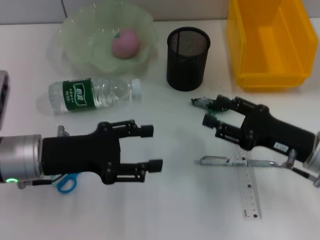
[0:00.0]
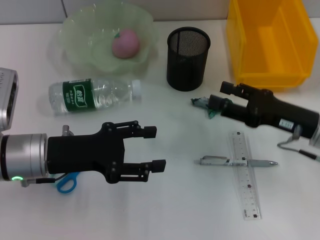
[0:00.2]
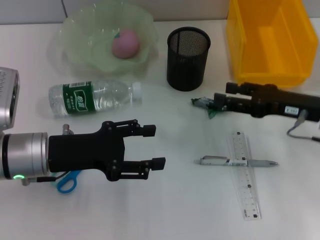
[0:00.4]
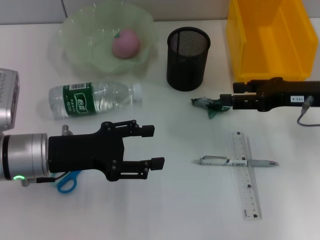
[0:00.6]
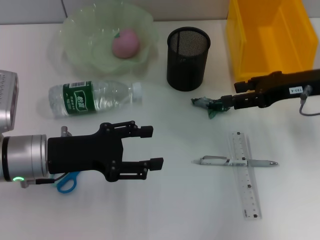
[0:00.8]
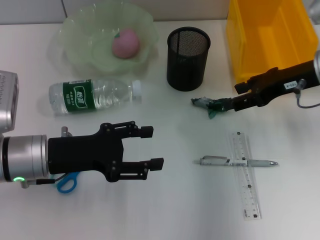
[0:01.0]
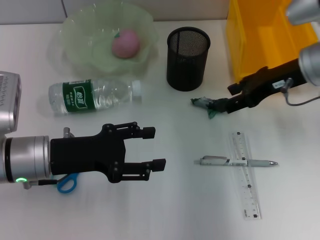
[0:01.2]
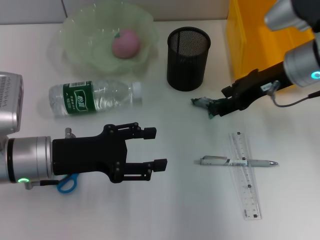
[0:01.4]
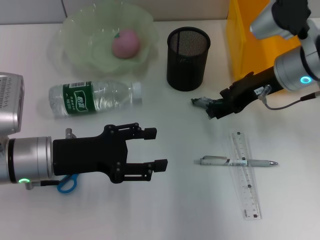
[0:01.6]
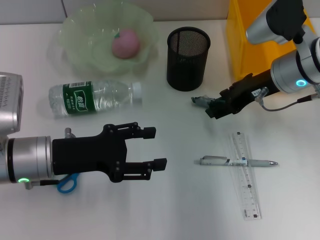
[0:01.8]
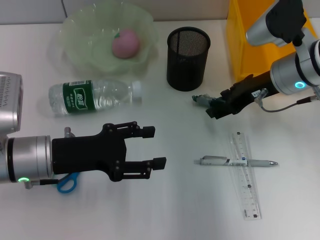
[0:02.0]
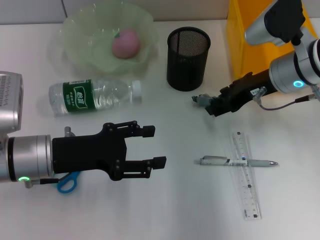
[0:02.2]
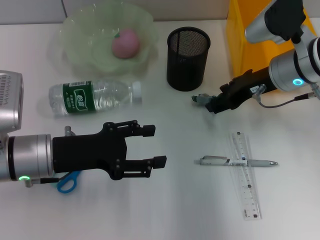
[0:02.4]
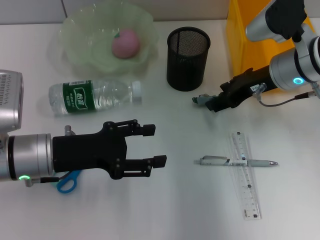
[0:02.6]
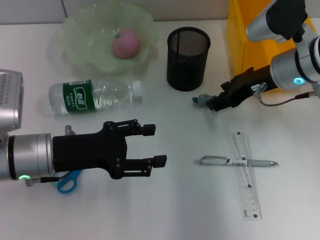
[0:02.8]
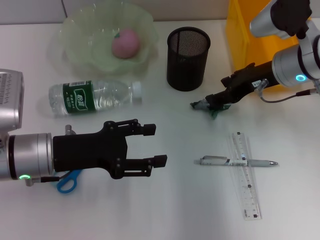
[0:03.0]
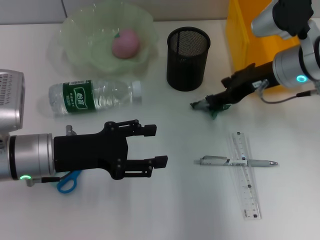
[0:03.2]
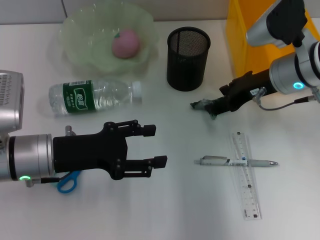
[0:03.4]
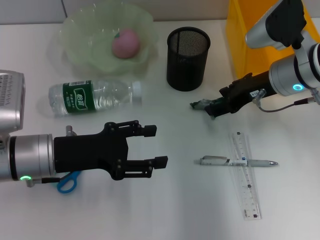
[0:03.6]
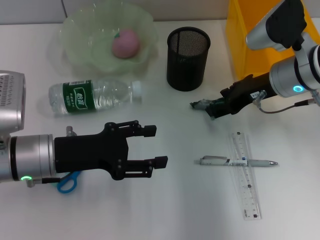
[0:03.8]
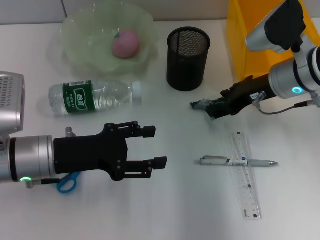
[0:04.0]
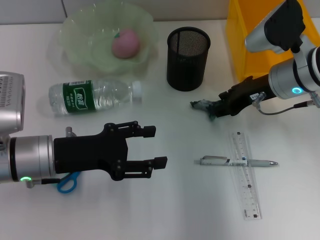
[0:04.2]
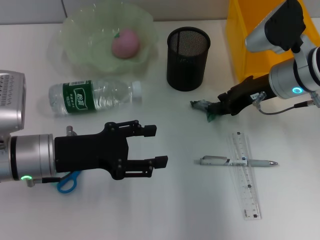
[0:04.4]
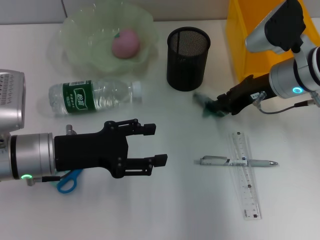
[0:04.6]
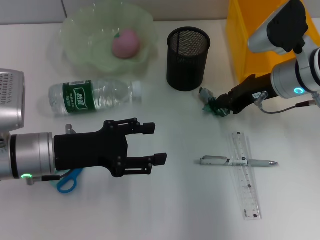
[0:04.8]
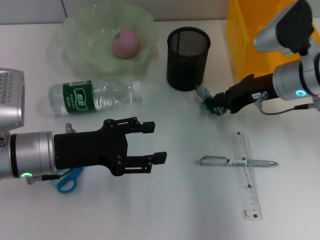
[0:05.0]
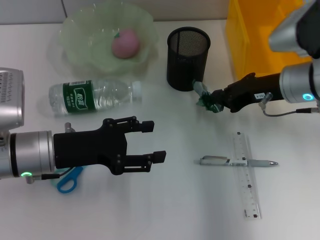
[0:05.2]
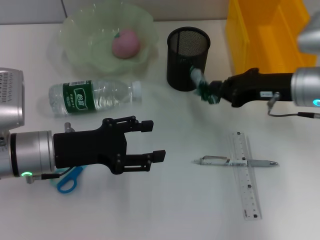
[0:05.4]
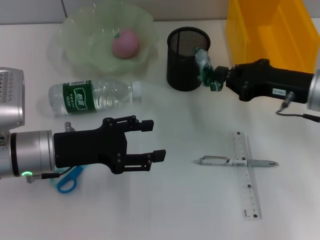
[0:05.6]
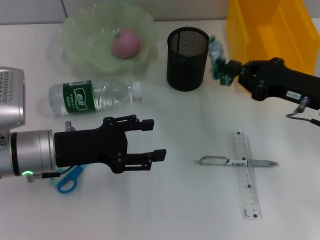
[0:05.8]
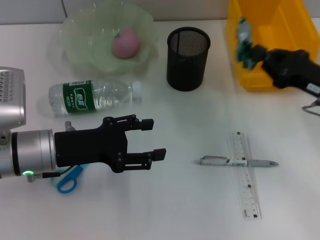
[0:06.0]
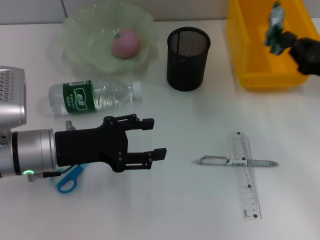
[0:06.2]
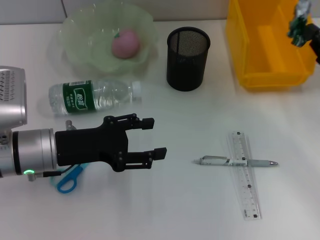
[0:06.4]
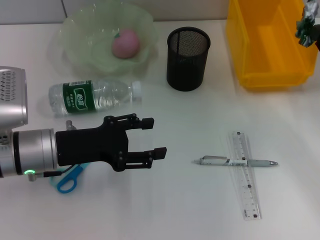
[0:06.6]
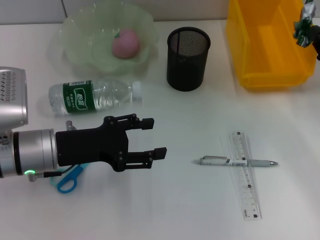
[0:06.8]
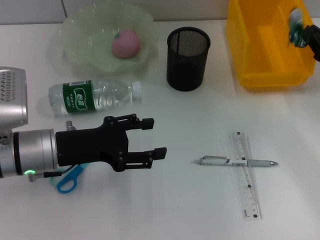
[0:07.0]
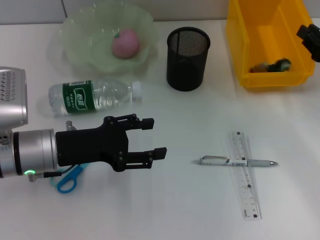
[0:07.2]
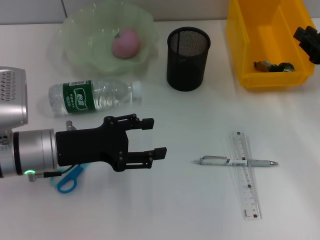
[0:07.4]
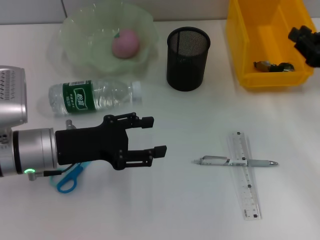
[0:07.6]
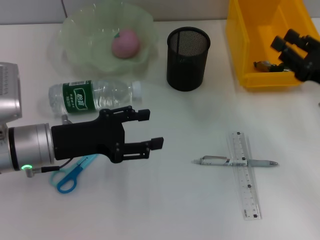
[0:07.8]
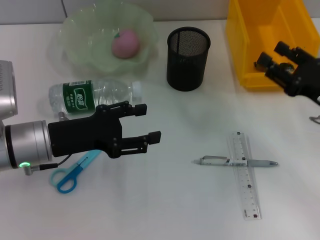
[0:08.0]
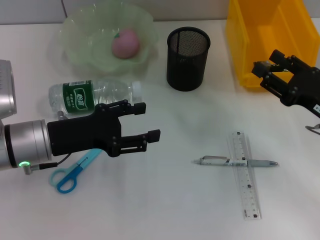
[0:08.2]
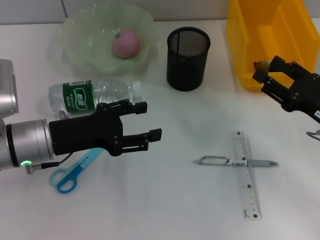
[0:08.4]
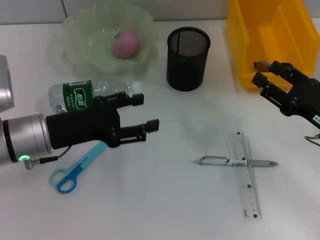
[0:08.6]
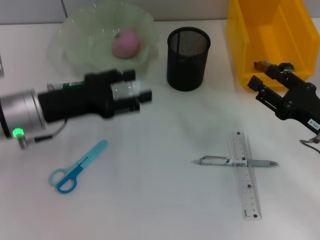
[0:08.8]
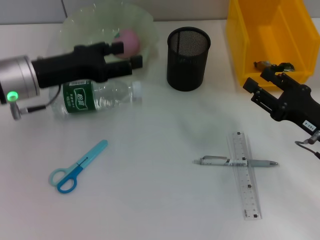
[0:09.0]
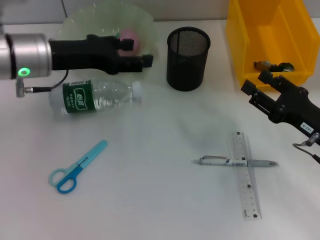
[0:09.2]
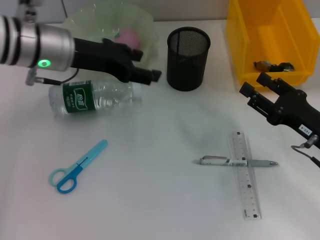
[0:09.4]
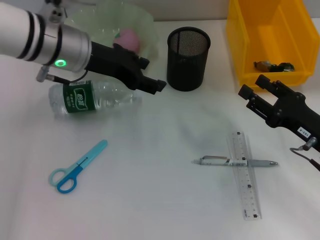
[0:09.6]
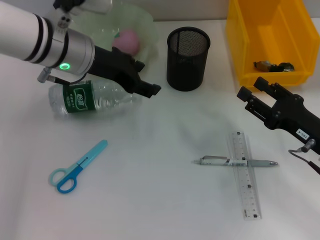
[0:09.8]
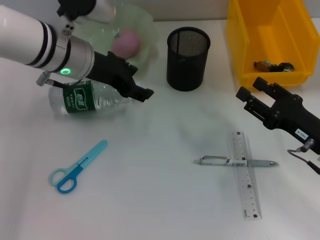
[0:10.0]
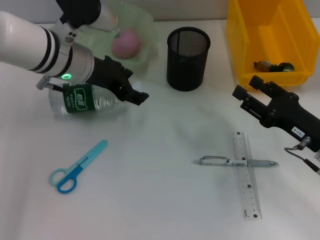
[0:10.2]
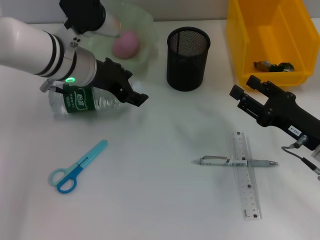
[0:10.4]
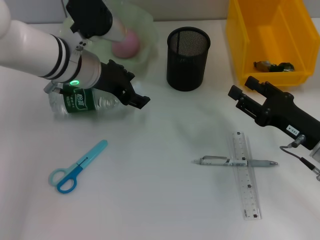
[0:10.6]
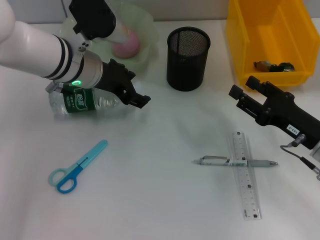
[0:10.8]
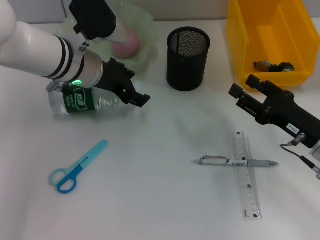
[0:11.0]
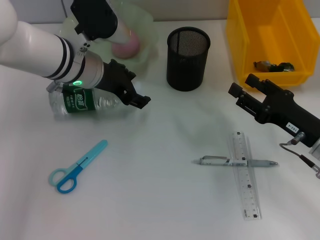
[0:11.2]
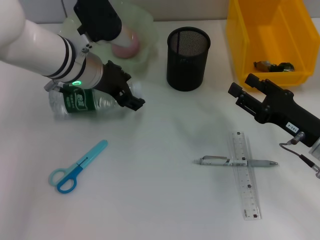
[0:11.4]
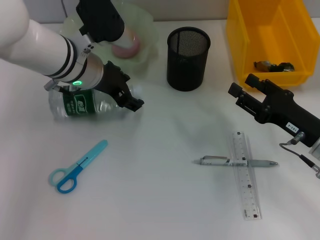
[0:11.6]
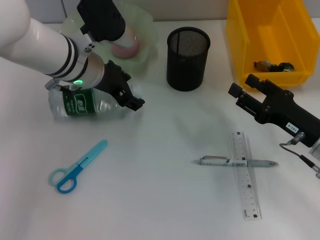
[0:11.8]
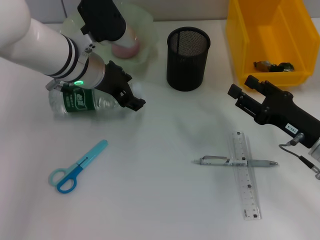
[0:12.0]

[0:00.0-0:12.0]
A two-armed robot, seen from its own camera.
Step, 0:00.0 to 0:04.8: Grab the plastic with the right hand.
Step, 0:05.0 to 0:07.2: Place the plastic into the trash can with the right hand.
0:00.0 to 0:01.6: The right gripper heads forward and upward, covering about 15 cm.
0:01.6 to 0:04.4: There are only small adjustments of the grippers.
0:04.4 to 0:06.0: The right gripper is displaced to the right and backward by about 10 cm, and closes its fingers.
0:07.6 to 0:09.0: The left gripper heads forward and upward, covering about 10 cm. The right gripper shifts some 5 cm backward, and opens its fingers.
0:09.0 to 0:10.4: The left gripper goes some 10 cm to the right and forward.
0:10.4 to 0:12.0: The grippers move only a little.

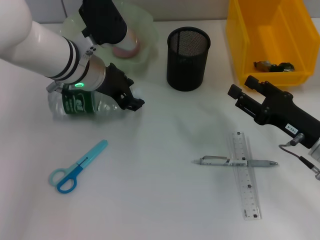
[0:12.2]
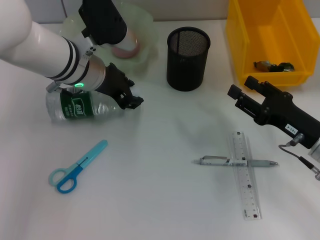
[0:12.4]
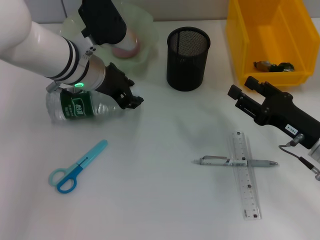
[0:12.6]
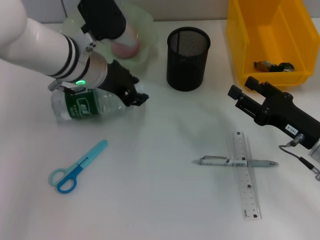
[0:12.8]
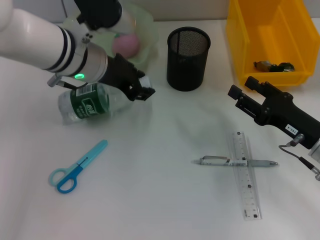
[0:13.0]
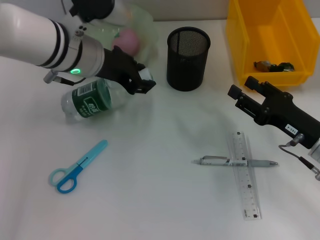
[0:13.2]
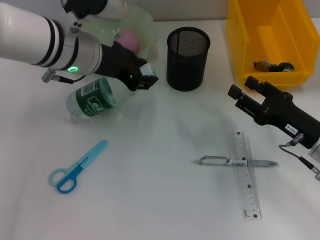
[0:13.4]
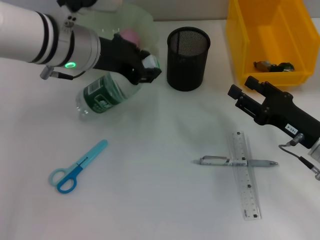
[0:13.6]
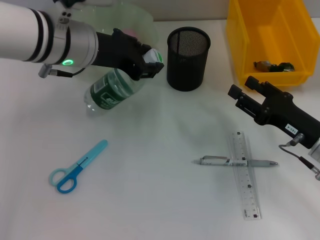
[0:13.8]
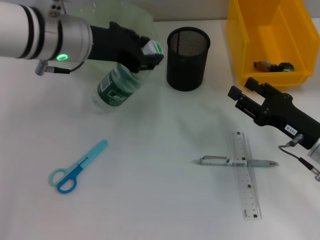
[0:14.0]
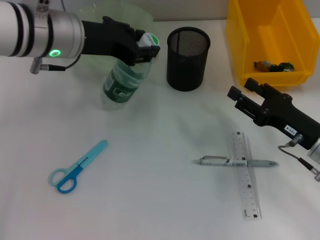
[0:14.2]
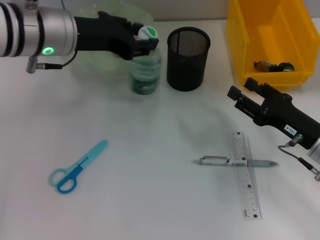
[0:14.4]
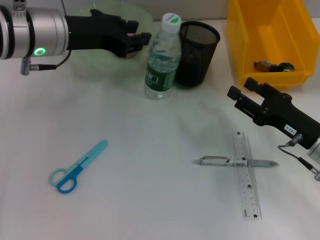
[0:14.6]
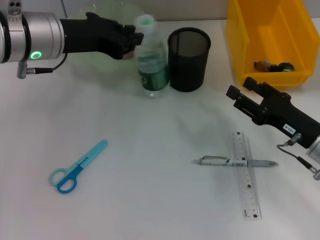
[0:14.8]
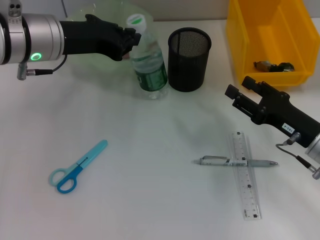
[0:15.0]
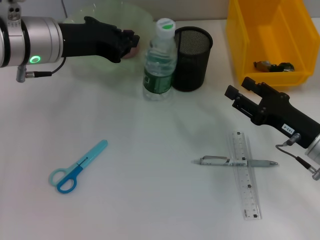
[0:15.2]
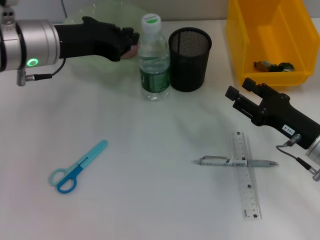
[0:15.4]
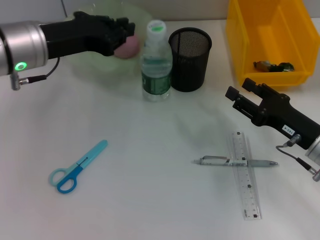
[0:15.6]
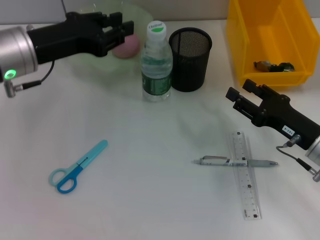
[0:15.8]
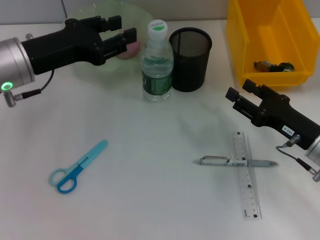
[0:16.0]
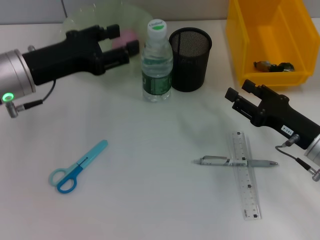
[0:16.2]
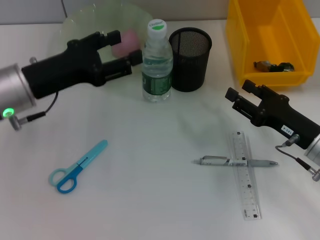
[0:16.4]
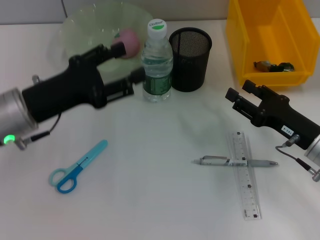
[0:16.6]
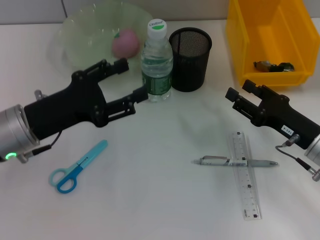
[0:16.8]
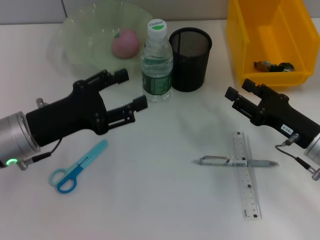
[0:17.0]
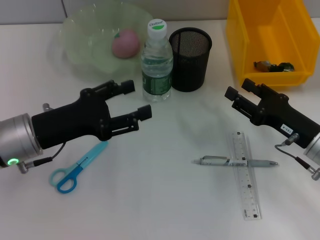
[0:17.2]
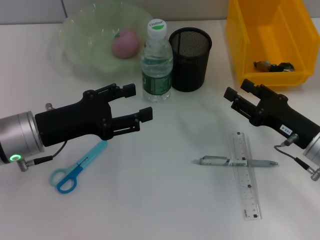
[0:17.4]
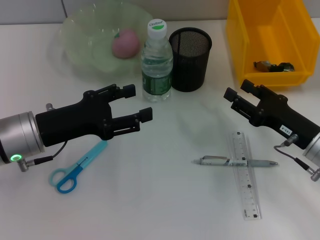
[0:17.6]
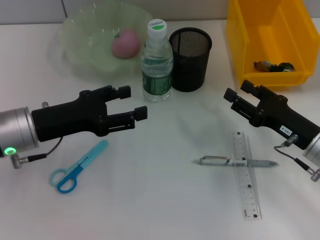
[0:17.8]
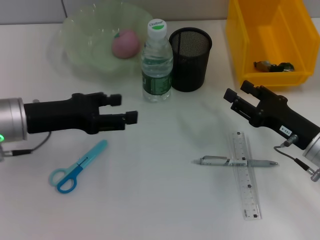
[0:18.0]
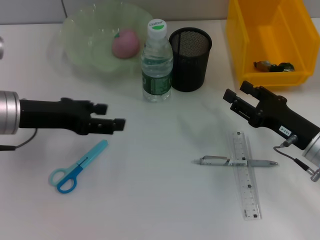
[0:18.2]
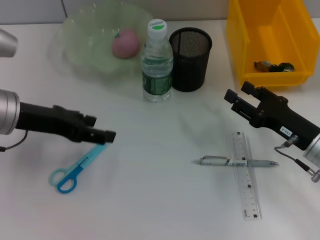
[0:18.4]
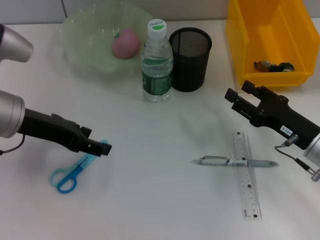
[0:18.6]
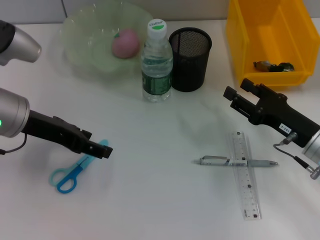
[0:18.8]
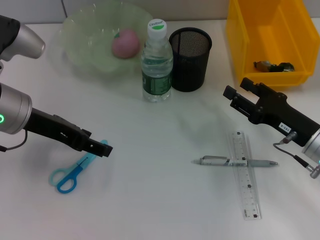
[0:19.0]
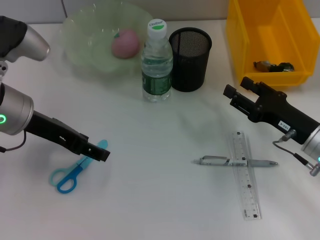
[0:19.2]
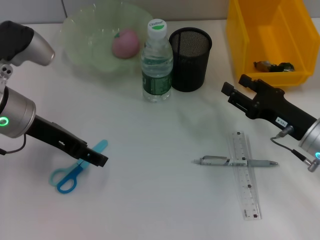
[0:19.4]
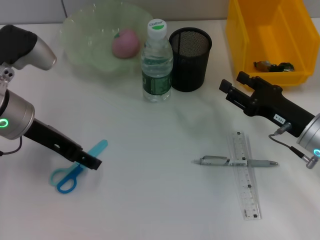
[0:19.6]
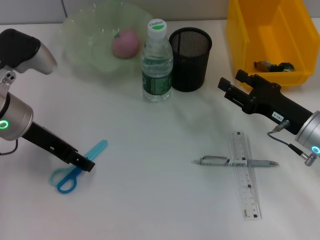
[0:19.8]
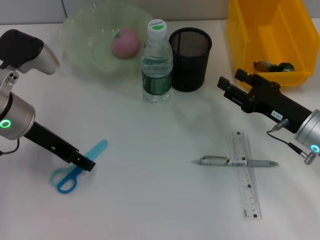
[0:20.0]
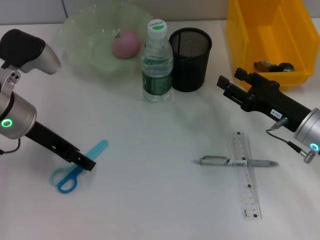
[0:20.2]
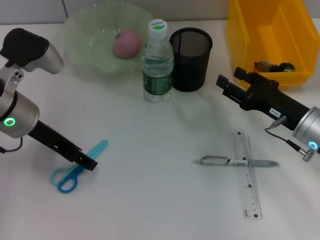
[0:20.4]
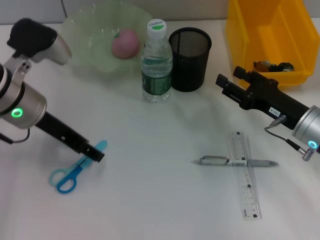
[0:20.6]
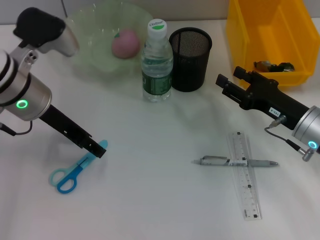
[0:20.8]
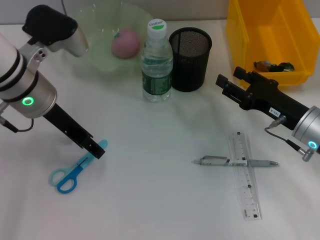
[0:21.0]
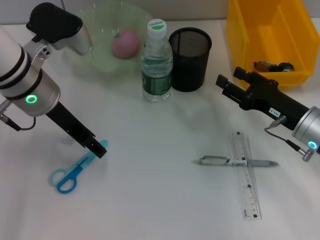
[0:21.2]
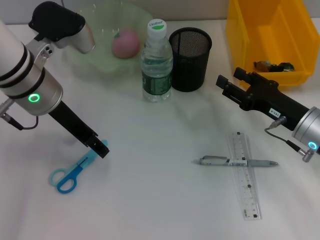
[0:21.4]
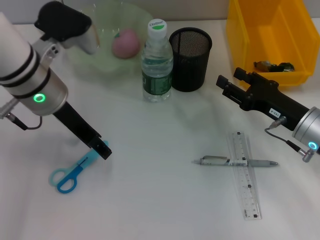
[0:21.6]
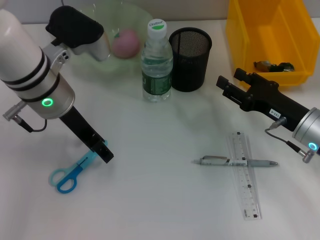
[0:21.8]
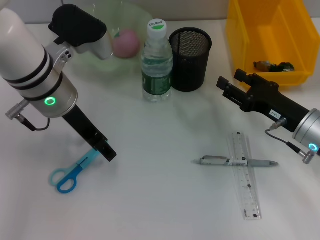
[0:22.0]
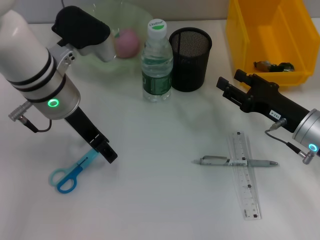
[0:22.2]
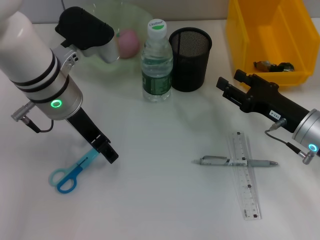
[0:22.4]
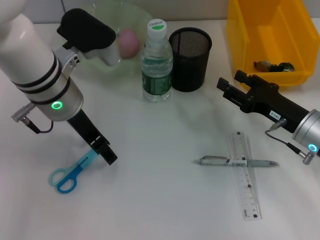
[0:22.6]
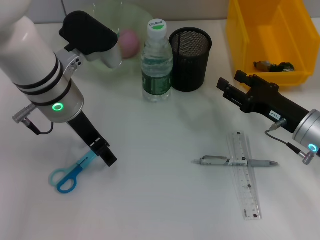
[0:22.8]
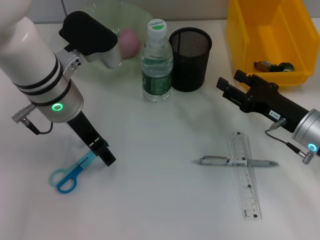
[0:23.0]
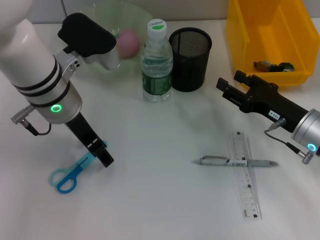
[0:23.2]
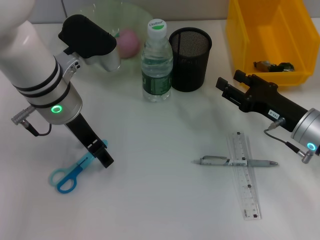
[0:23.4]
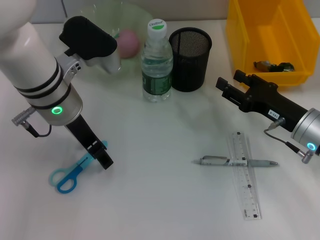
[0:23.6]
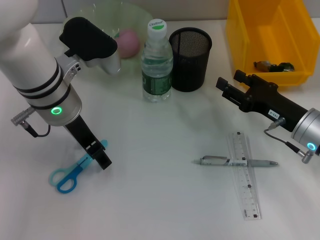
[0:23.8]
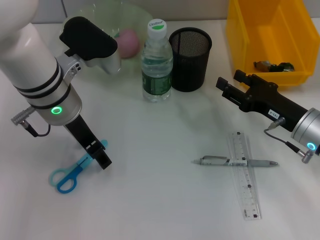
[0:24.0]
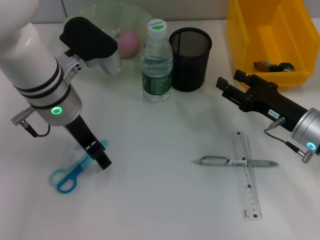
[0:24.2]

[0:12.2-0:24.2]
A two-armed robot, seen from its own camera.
Step, 0:12.6 to 0:15.6: Place the water bottle on the table with the left hand.
0:12.2 to 0:13.8: The left gripper goes roughly 5 cm upward, and closes up.
0:13.8 to 0:15.2: The left gripper closes.
0:15.2 to 0:16.6: The left gripper travels downward and backward by some 10 cm, and opens its fingers.
0:19.8 to 0:21.2: The left gripper shifts by about 5 cm.
0:21.2 to 0:22.6: The grippers move only a little.
0:22.6 to 0:24.2: Both grippers stay put.
